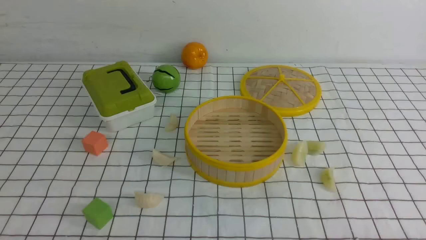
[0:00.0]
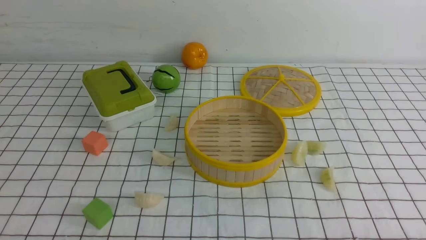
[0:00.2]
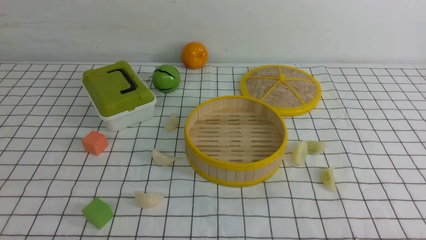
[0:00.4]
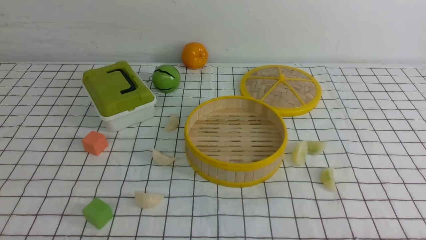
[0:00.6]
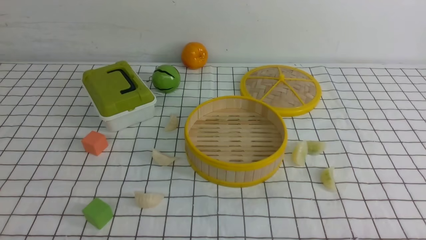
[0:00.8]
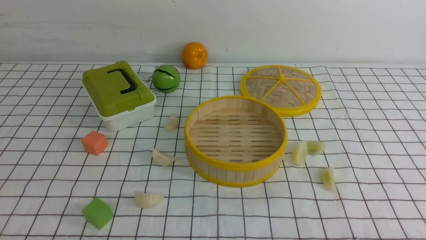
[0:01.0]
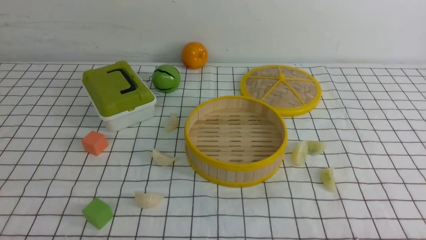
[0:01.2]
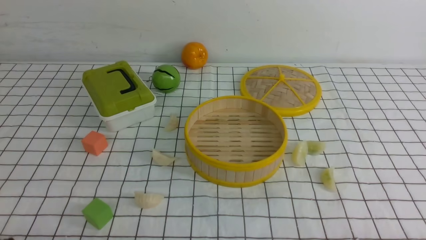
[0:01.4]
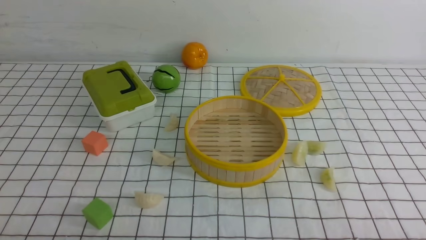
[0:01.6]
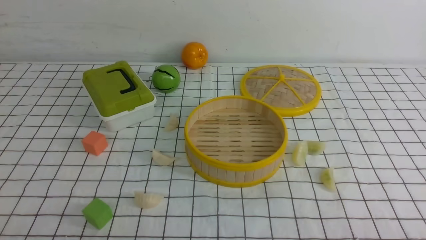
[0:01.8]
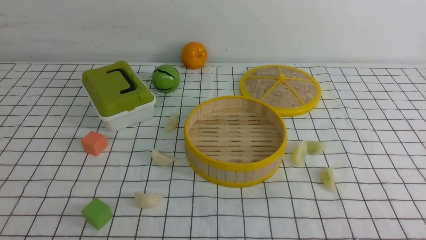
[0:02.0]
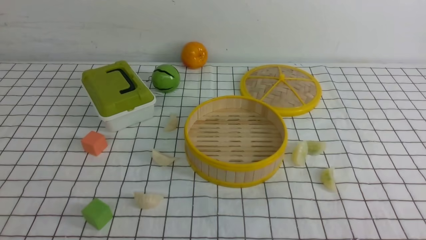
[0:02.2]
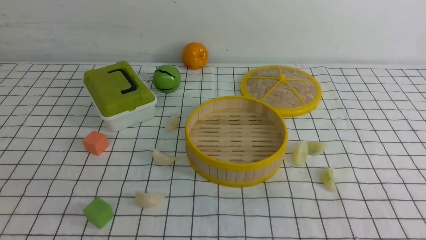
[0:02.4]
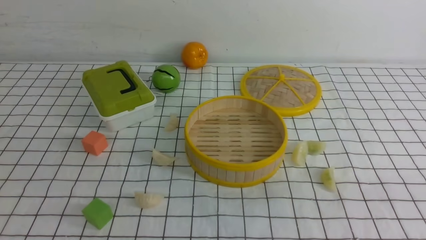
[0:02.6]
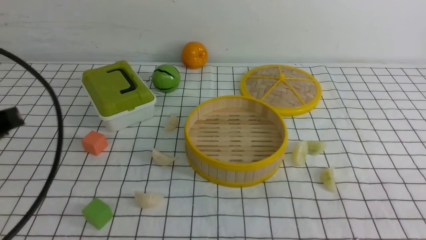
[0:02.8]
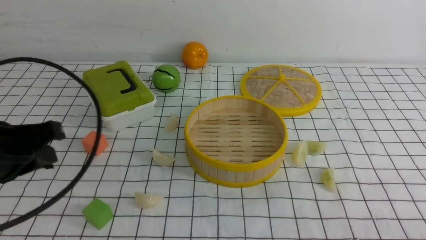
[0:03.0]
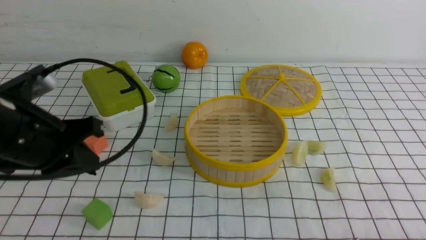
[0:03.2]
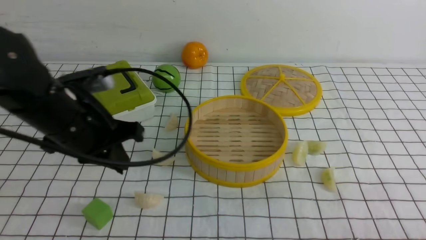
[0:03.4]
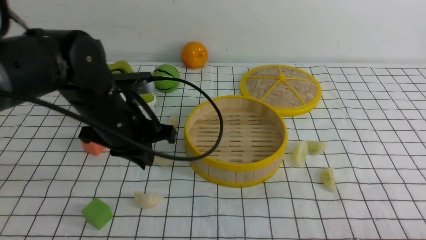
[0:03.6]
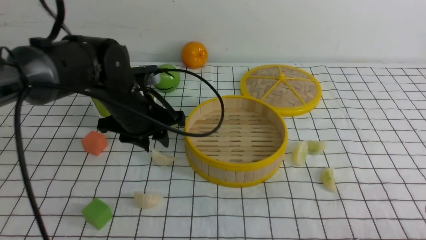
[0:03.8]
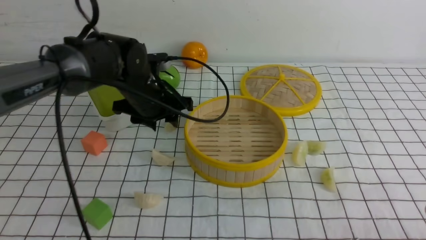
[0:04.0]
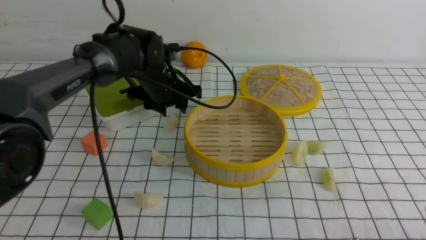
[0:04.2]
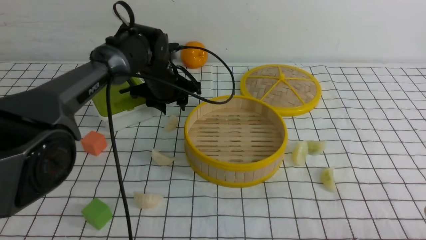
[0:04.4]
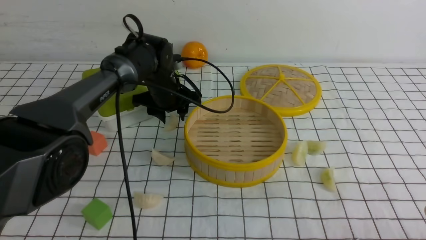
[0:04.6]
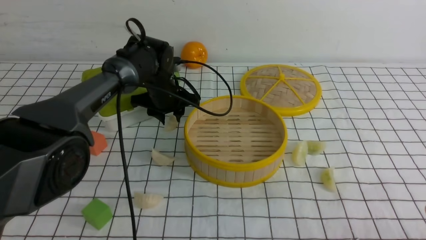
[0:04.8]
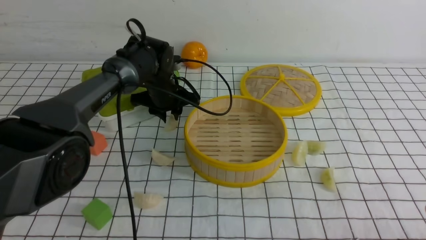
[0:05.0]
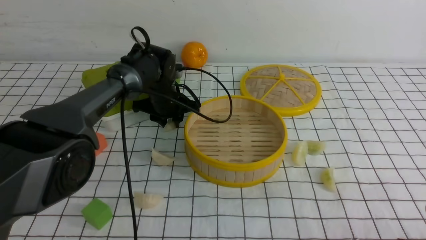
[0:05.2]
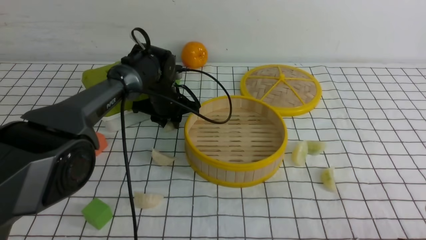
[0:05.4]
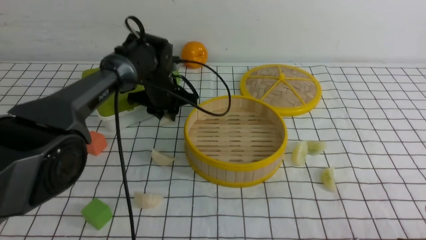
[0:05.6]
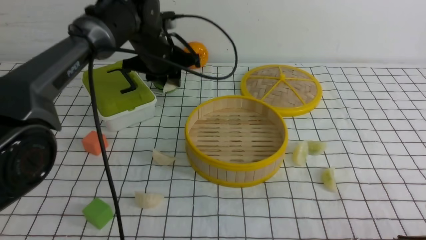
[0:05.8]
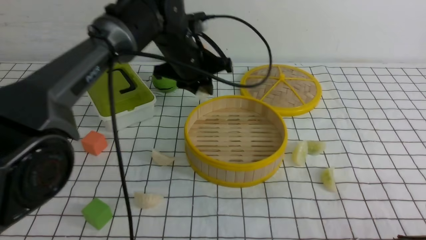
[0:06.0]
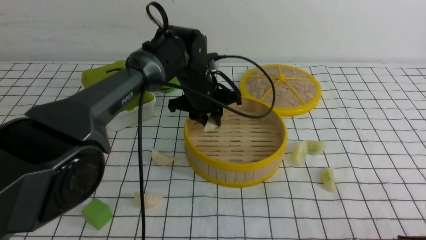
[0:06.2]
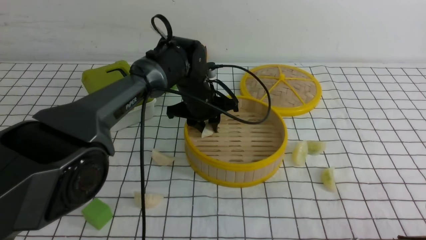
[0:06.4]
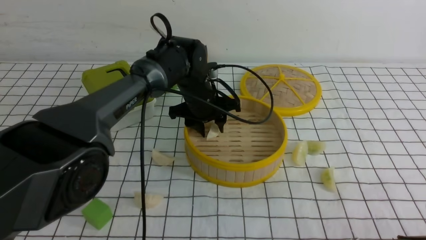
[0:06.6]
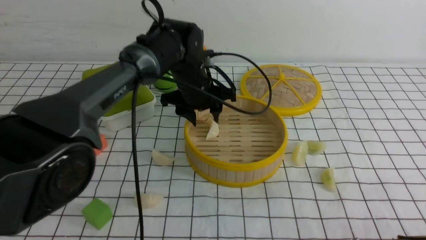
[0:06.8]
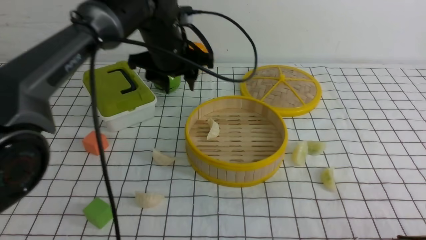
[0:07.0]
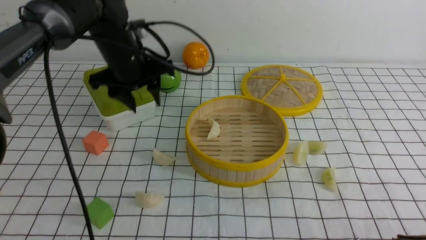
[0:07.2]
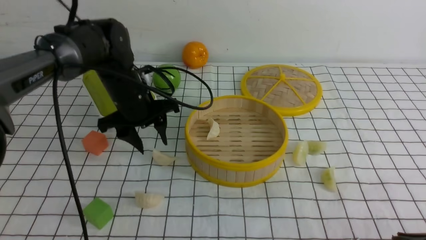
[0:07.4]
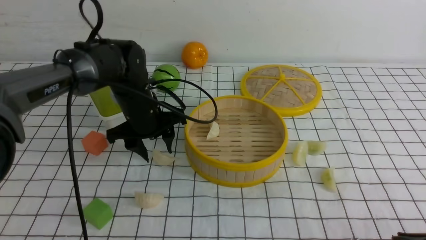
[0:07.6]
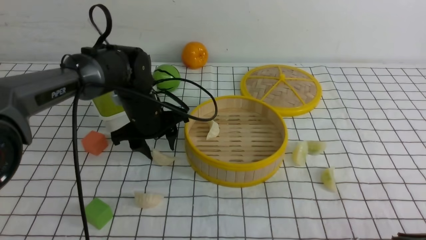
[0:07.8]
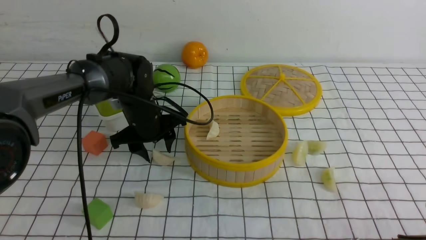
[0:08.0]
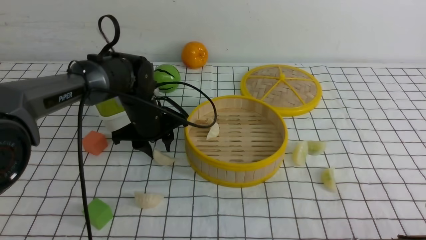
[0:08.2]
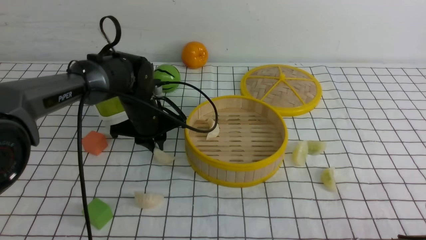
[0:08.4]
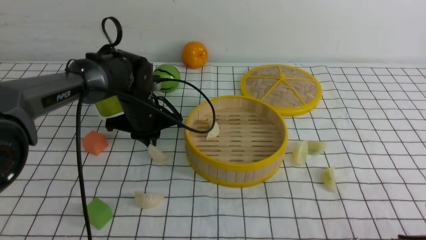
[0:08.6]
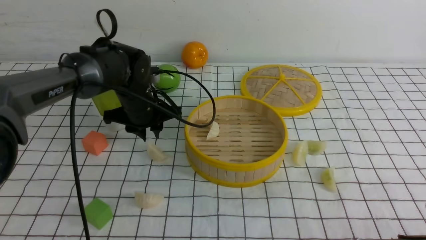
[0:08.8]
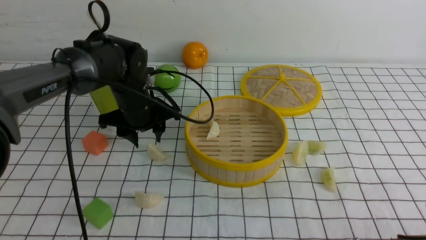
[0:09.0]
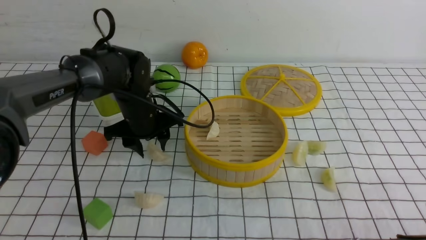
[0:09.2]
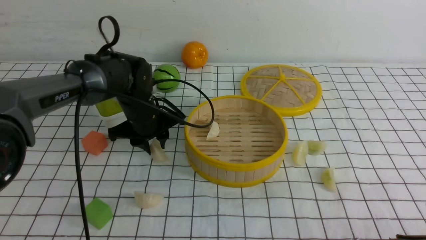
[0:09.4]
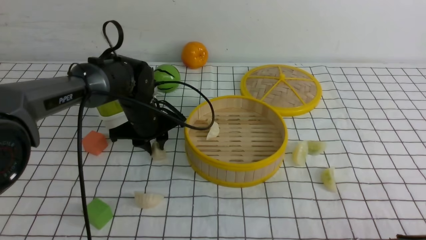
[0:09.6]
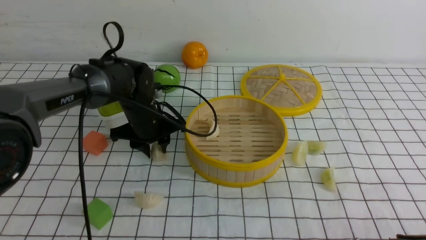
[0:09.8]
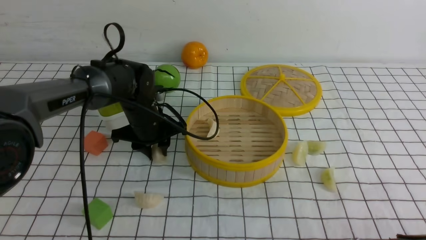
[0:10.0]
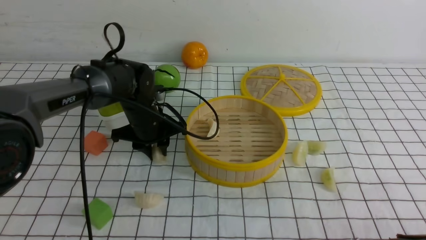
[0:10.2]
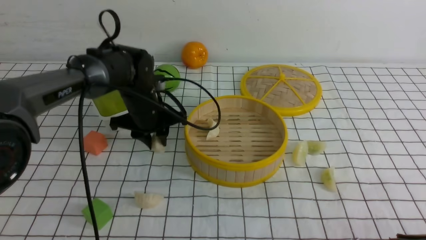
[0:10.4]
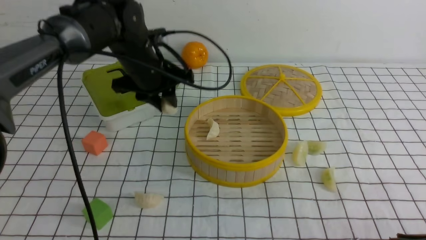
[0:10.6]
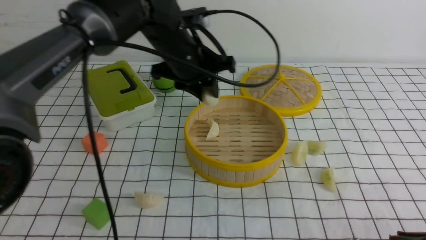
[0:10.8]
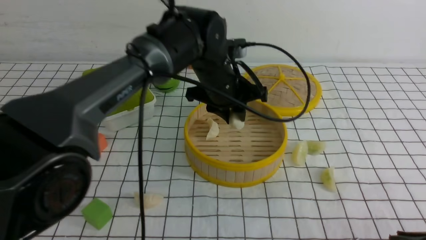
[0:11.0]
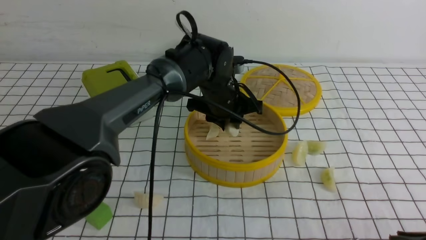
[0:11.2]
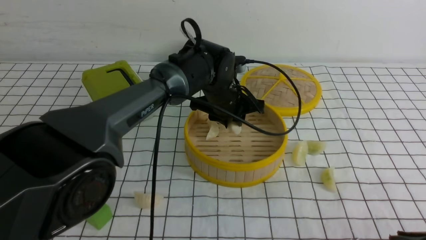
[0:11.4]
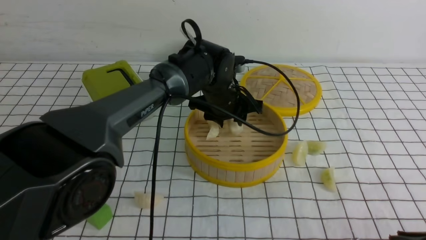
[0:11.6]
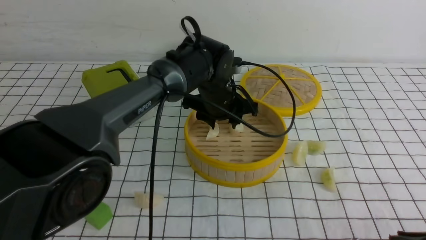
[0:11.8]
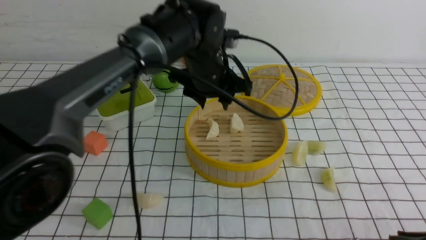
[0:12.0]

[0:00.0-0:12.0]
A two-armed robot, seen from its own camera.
Task of the whole recording: put the dumplings into the steamer on the table with the white tablecloth.
Step, 0:00.0 to 0:05.2: use the left arm to grab a dumpling.
Step, 0:05.6 to 0:06.8: use the left arm to put the dumpling into the steamer.
Step, 0:07.0 to 0:10.2: use the left arm to grab a dumpling.
Step, 0:10.4 to 0:11.8: use the left arm to put the dumpling into the steamer.
0:01.6 to 0:03.0: The left gripper heads forward and upward, covering approximately 20 cm.
0:03.0 to 0:04.4: The left gripper travels forward and to the right by roughly 30 cm, and opens its fingers.
0:04.4 to 0:06.0: The left gripper moves upward, some 5 cm, and closes its fingers.
0:06.0 to 0:07.6: The left gripper goes approximately 10 cm to the left and downward, and opens up.
0:07.6 to 0:09.0: The left gripper closes, then reopens.
0:09.0 to 0:10.4: The grippers stay close to where they were, moving slightly.
0:10.4 to 0:12.0: The left gripper goes approximately 15 cm to the right and upward, and opens up.

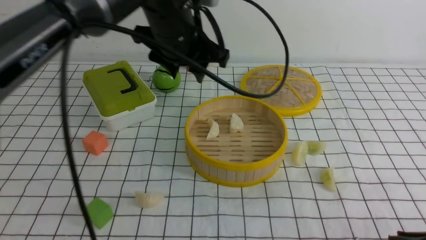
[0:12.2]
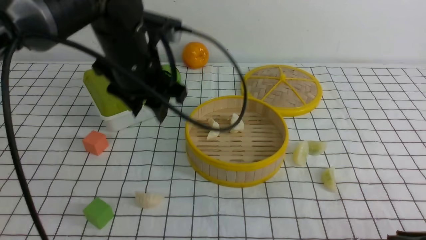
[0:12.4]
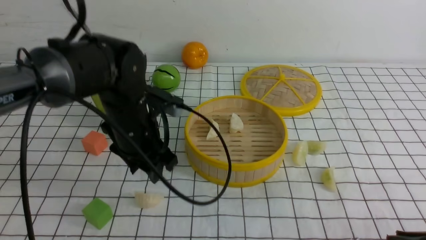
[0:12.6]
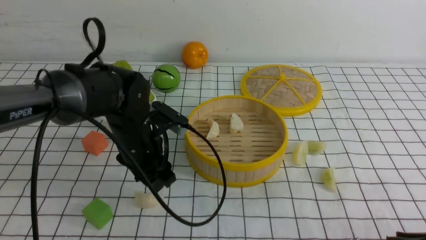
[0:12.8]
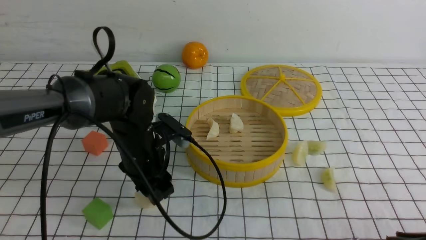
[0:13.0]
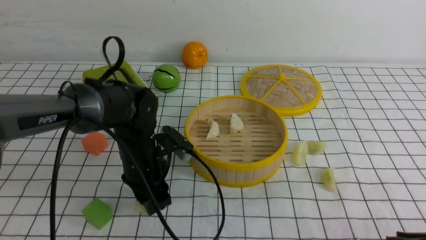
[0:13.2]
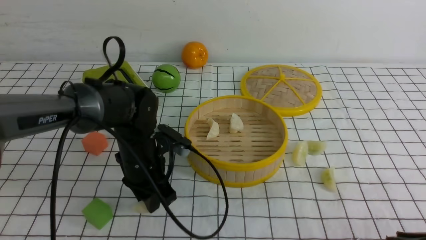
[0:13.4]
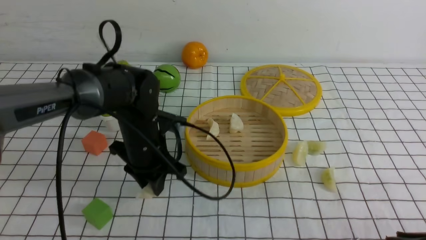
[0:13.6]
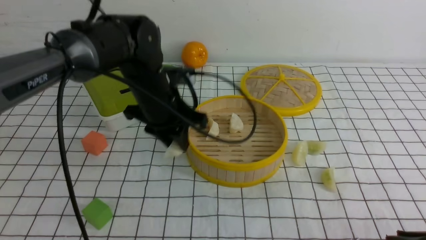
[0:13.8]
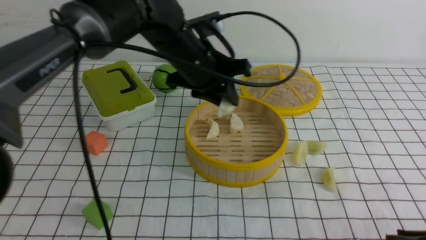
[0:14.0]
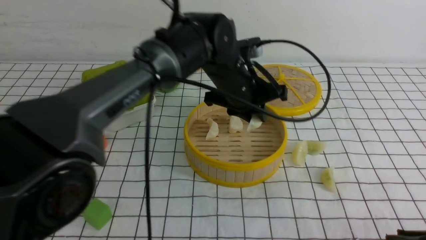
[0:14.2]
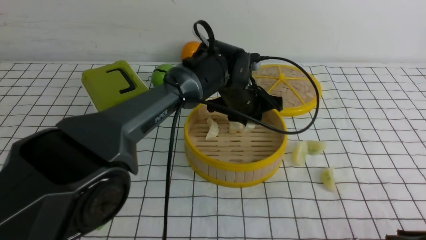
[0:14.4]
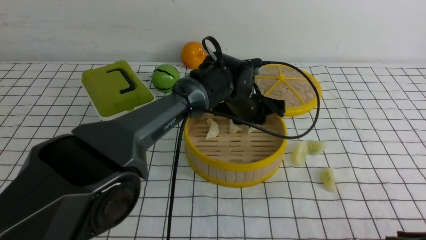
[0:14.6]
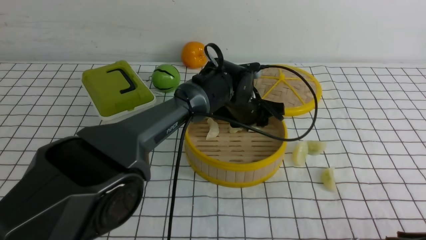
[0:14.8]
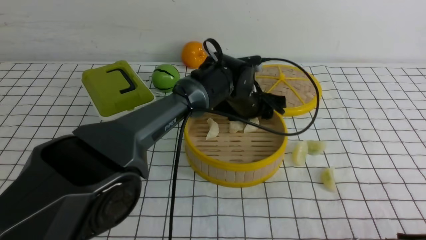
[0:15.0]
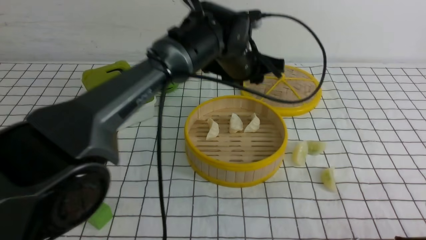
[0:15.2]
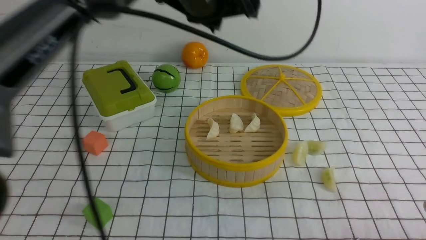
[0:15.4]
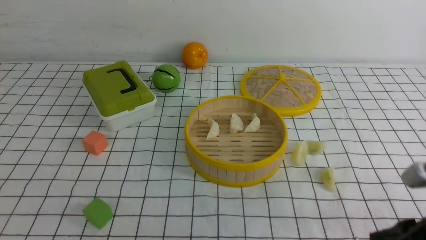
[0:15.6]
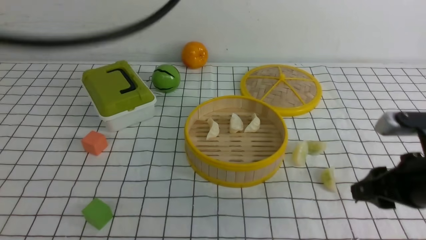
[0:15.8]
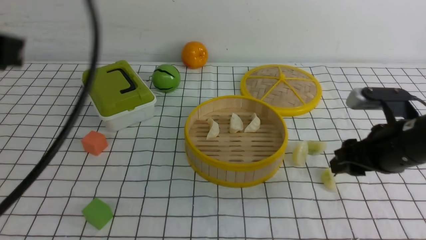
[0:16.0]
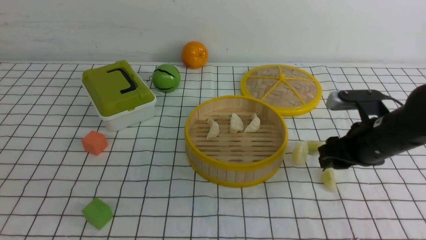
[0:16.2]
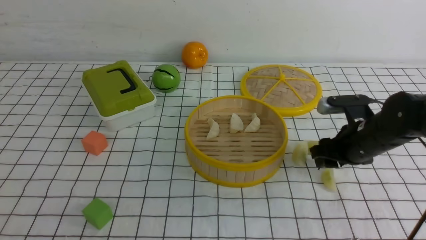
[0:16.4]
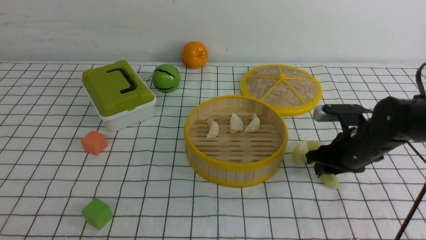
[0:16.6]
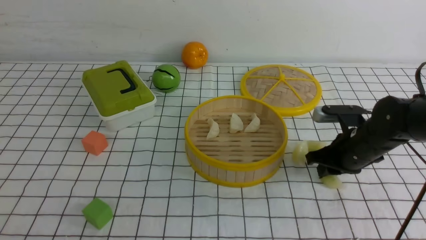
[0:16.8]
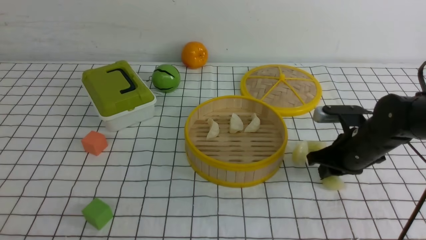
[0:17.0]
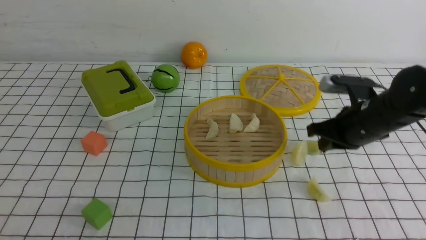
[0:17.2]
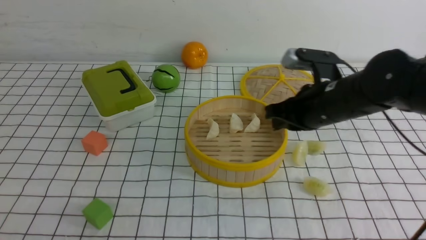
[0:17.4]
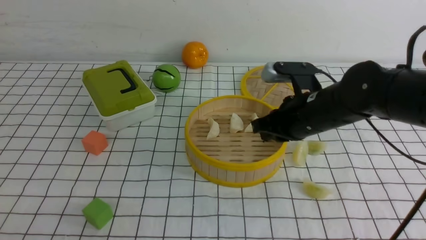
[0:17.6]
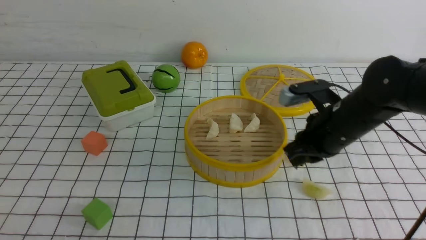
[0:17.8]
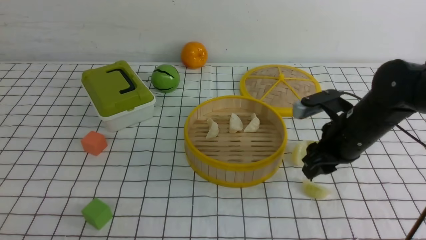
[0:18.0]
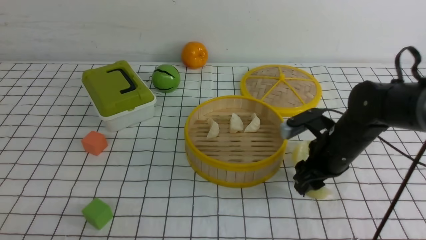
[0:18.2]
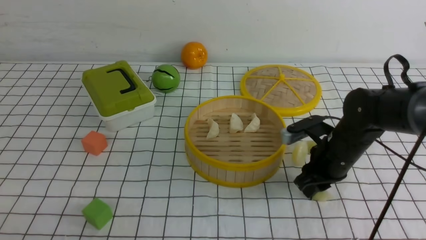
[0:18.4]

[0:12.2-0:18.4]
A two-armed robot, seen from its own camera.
Task of the whole recording: put the dumplings into the steamer on the table with the white tablecloth.
Step, 0:12.2 to 0:13.4: use the left arm to grab a dumpling.
Step, 0:13.6 to 0:15.0: use the left arm to put the dumpling into the steamer.
Step, 0:15.4 to 0:18.4: use the right arm to grab a dumpling.
0:12.2 to 0:13.8: The left gripper heads downward, covering roughly 10 cm, and closes.
0:13.8 to 0:15.4: The left gripper is displaced upward by roughly 20 cm, and opens, then closes once more.
0:15.4 to 0:16.8: The right gripper is displaced forward by about 25 cm, and opens, then closes once more. Meanwhile the left gripper heads backward, to the left and downward, covering roughly 40 cm.
0:16.8 to 0:18.4: The right gripper travels upward and back again, about 10 cm each way, and closes and opens again.
